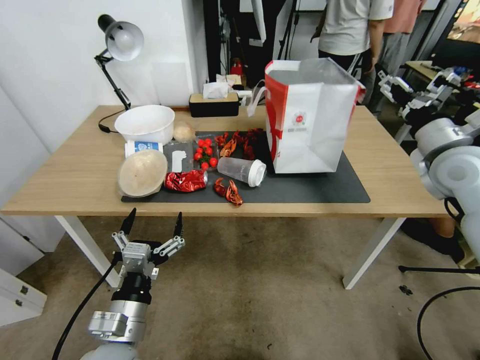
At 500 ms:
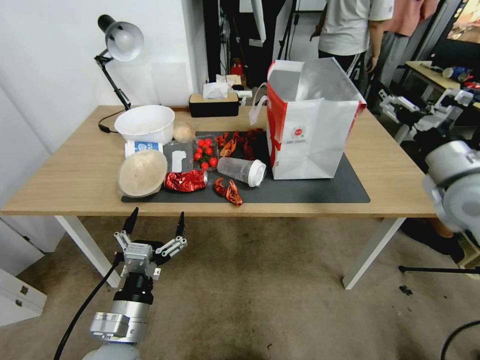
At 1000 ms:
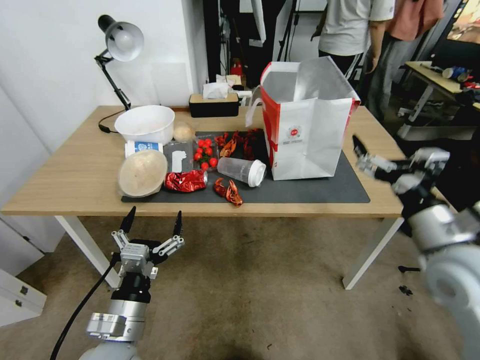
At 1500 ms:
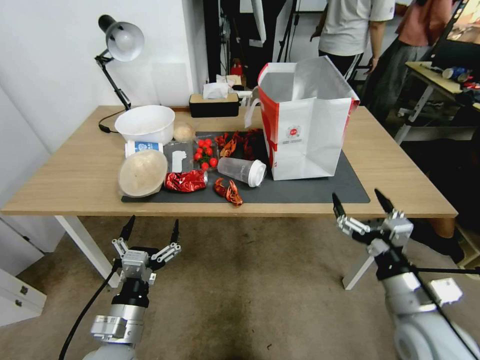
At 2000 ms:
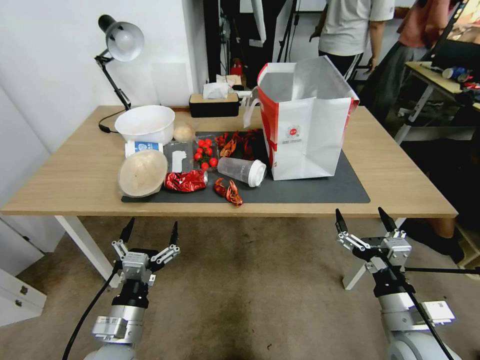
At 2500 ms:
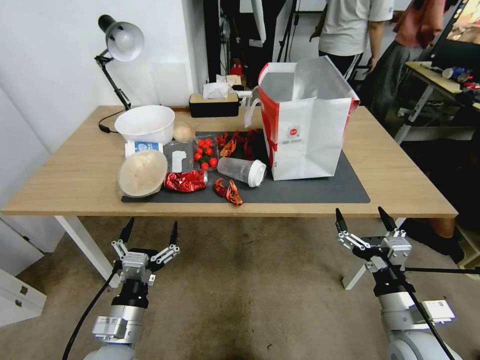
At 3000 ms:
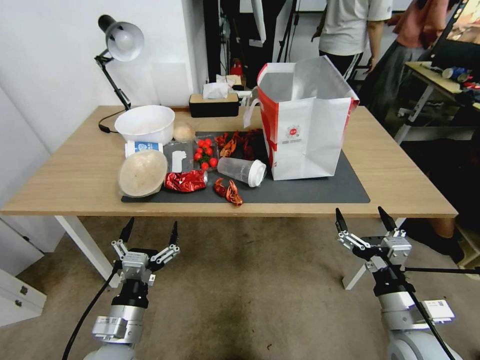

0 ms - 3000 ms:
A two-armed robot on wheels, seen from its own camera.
Task of the whole recording: Pick up the food delivery bag from the floor and place it on the table.
0 ms - 1500 ms: The right gripper goes roughly 30 cm backward, downward and to the left.
1500 ms - 3000 ms: The grippers make only small movements.
